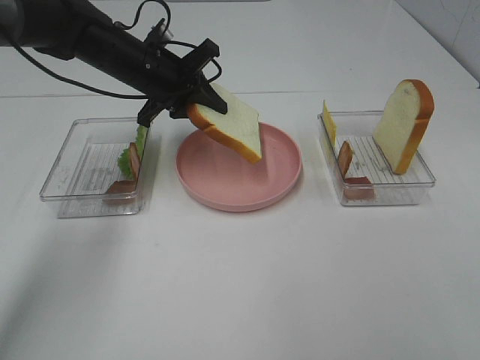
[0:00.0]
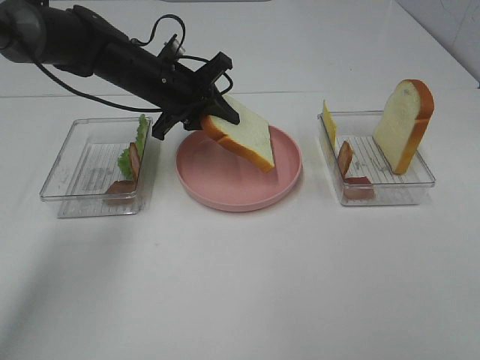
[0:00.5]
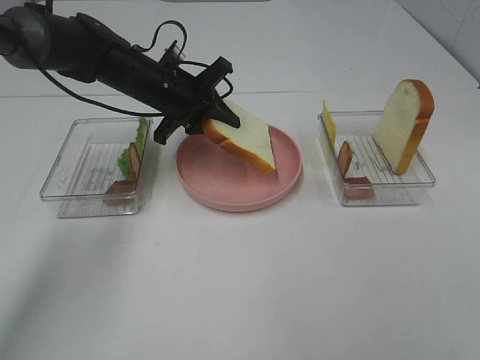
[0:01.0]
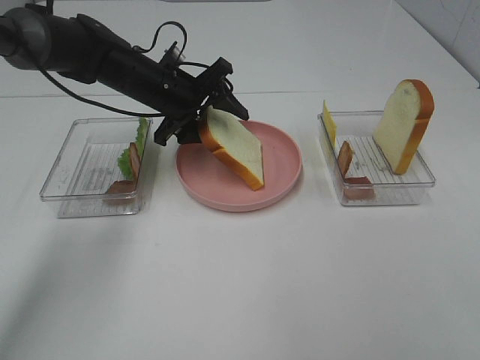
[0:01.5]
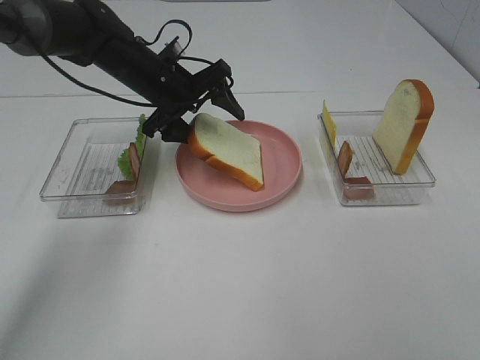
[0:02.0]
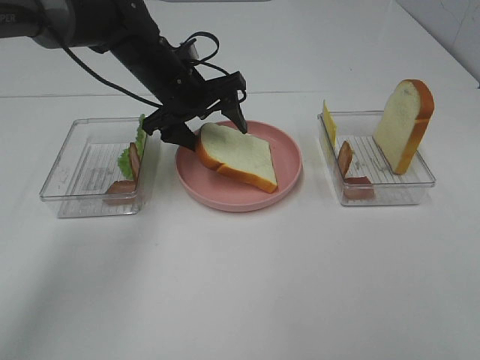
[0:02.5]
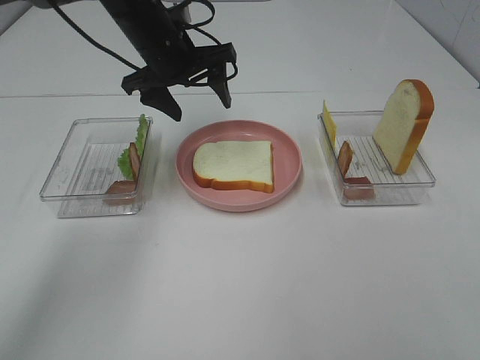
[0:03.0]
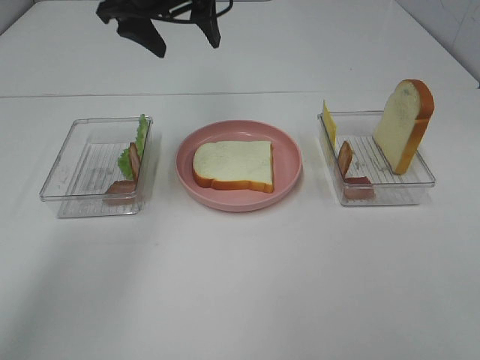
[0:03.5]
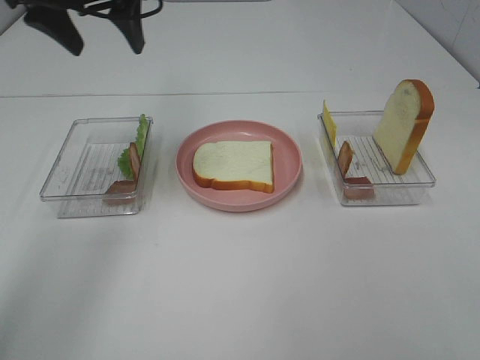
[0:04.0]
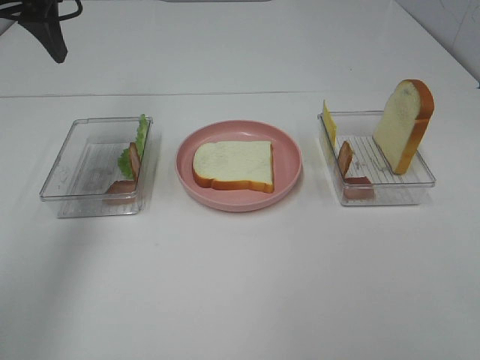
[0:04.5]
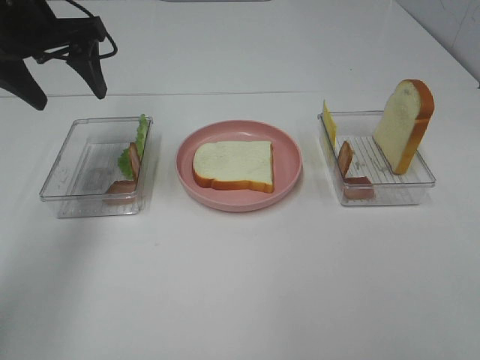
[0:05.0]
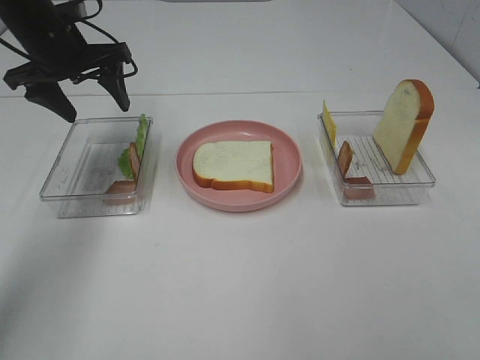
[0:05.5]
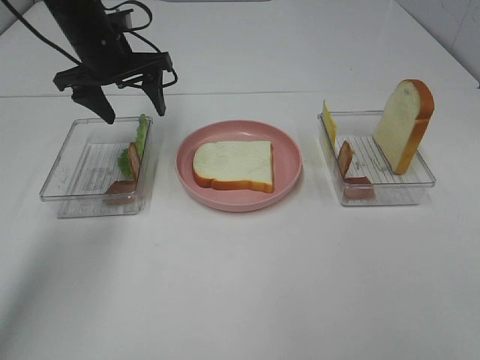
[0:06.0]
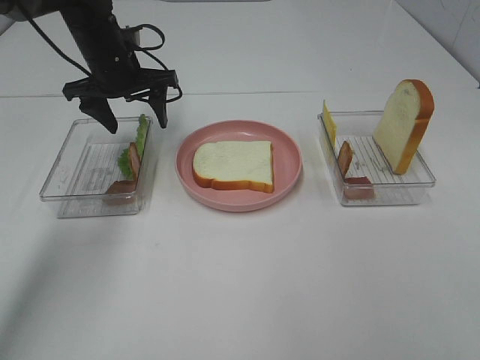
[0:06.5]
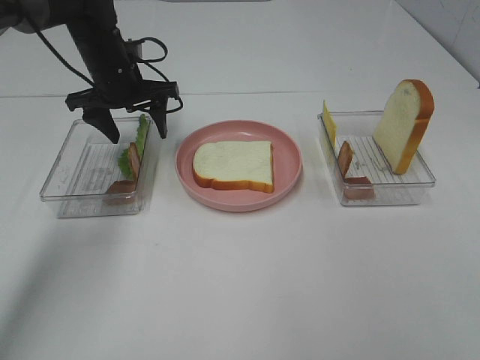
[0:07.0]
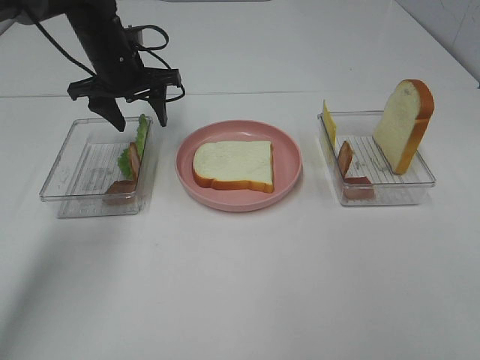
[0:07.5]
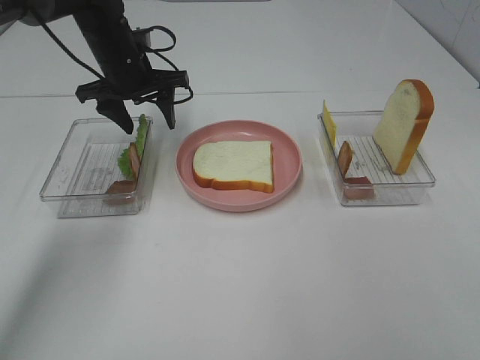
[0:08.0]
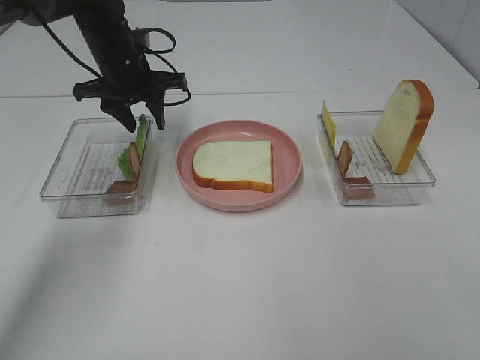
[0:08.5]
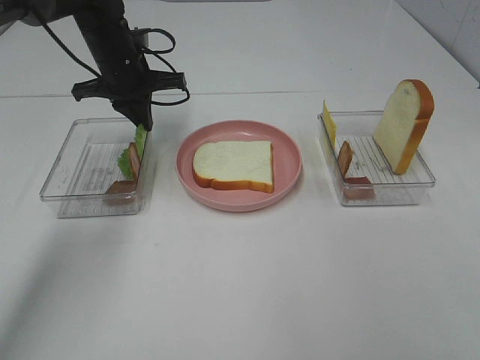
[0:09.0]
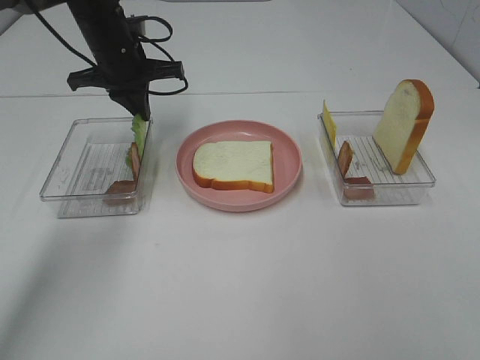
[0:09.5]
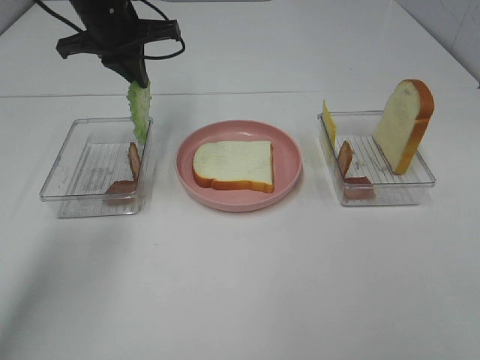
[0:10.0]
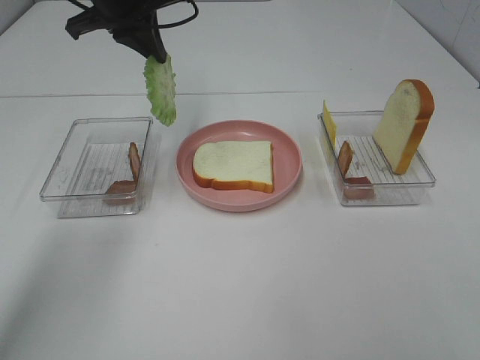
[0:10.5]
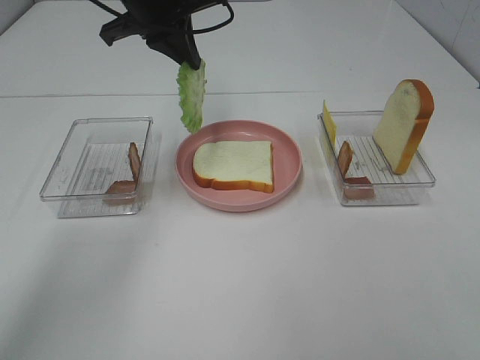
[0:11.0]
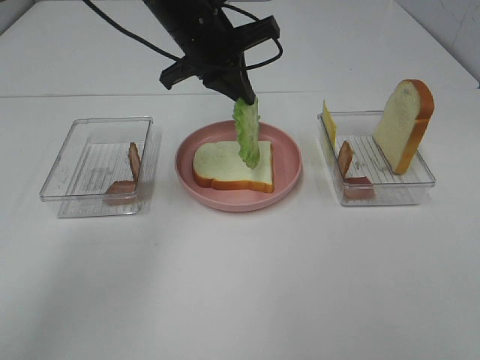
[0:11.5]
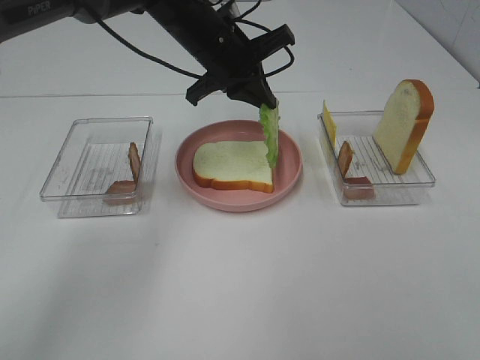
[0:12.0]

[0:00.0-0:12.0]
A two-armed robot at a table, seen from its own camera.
Task of the whole recording: Make sandwiches.
Step, 0:00.0 to 0:03.0: Left hand:place the bread slice on the plate.
Step, 0:03.5 to 0:09.0: Left hand:grab the lettuce slice.
0:00.0 to 0:02.0: The left gripper opens its fingers.
0:02.0 to 0:04.0: The left gripper goes approximately 20 cm upward and to the left.
0:04.0 to 0:06.0: The left gripper is displaced downward and forward by about 15 cm.
0:06.0 to 0:08.0: There are only small adjustments of the grippers.
0:08.0 to 0:10.0: The left gripper moves upward, roughly 10 cm, and closes.
0:10.0 to 0:12.0: The left gripper is displaced to the right by some 15 cm.

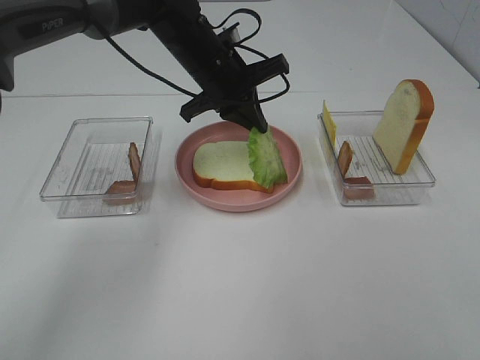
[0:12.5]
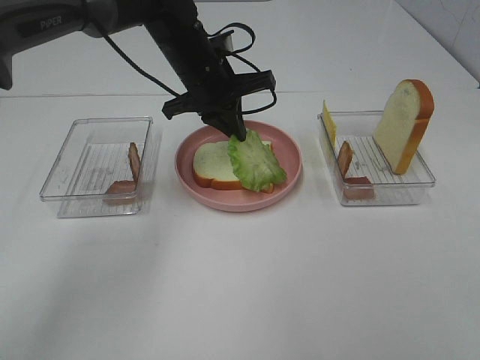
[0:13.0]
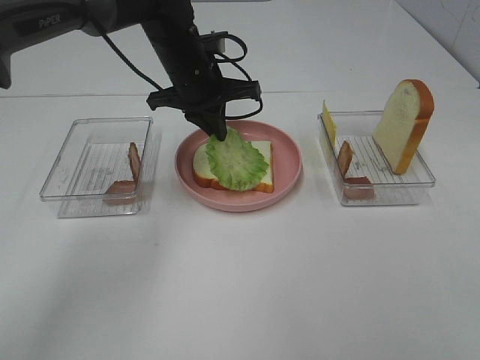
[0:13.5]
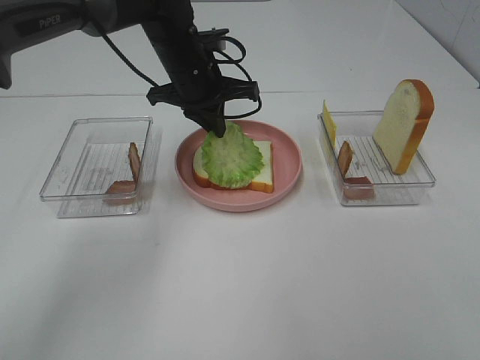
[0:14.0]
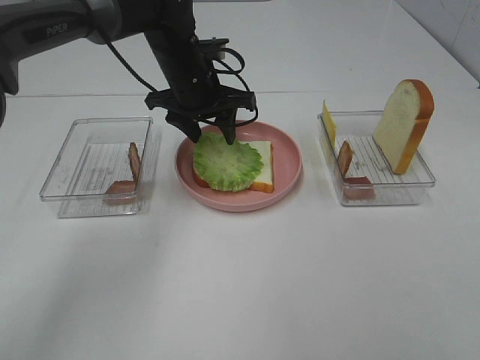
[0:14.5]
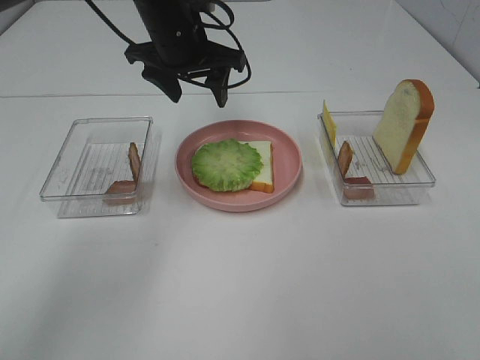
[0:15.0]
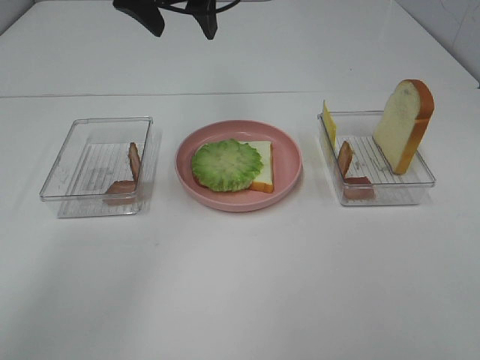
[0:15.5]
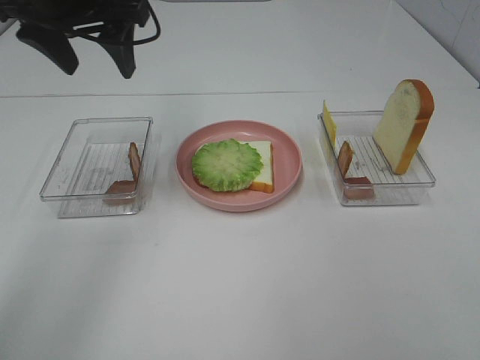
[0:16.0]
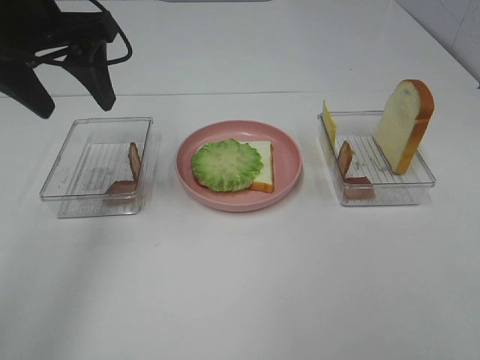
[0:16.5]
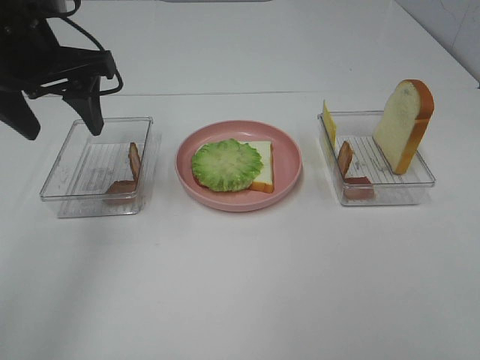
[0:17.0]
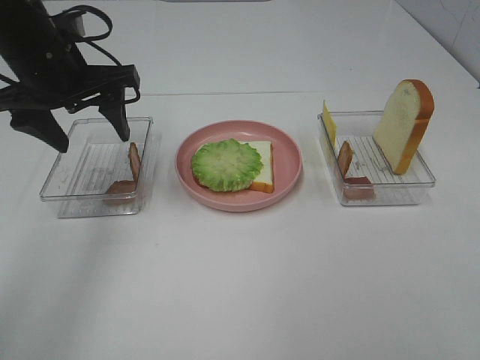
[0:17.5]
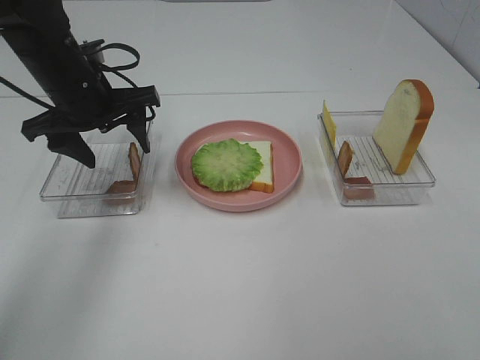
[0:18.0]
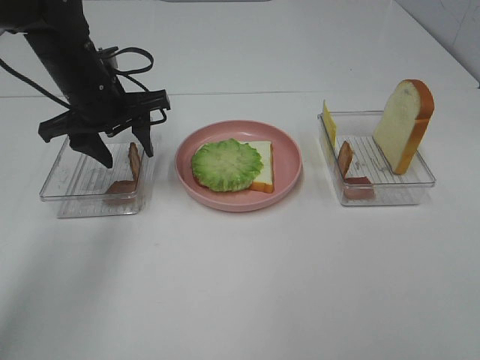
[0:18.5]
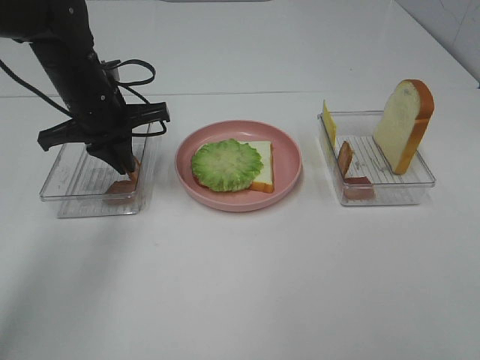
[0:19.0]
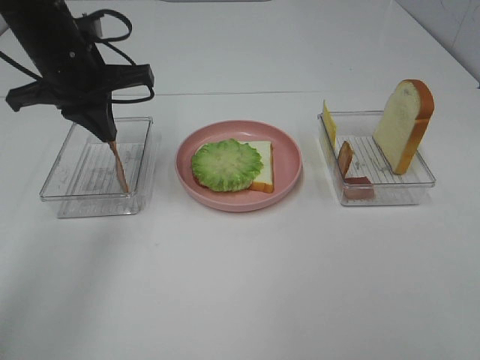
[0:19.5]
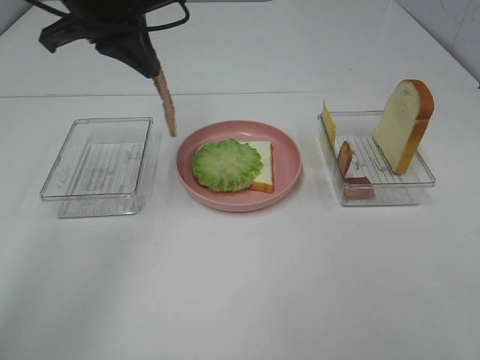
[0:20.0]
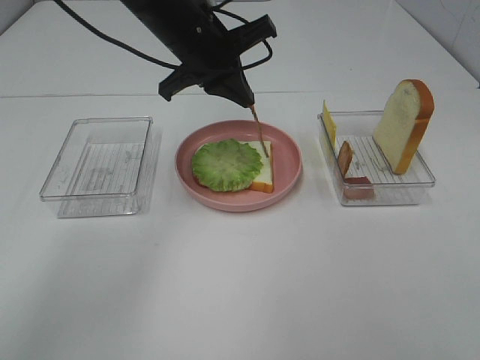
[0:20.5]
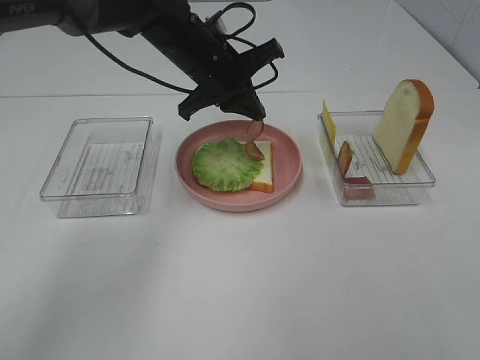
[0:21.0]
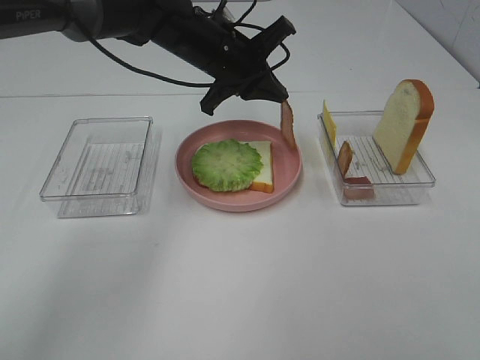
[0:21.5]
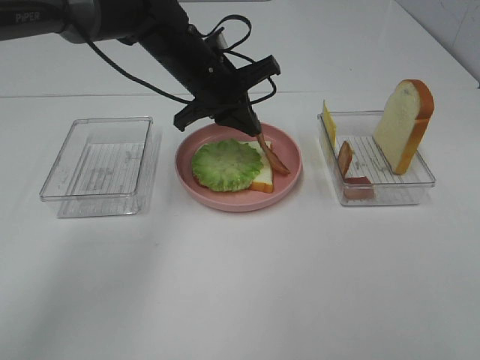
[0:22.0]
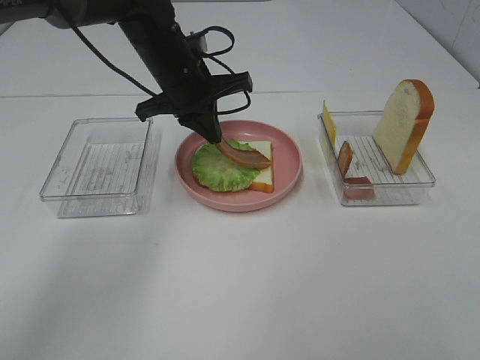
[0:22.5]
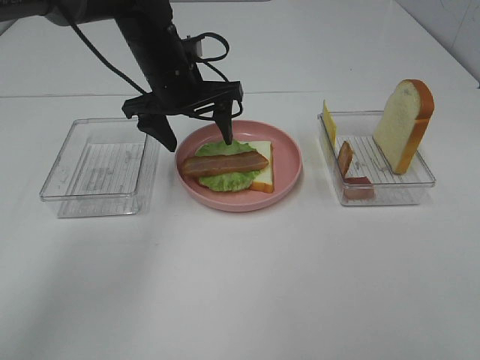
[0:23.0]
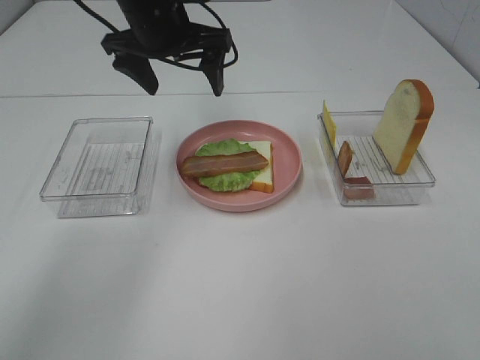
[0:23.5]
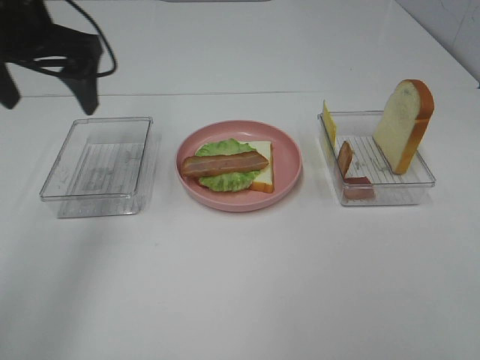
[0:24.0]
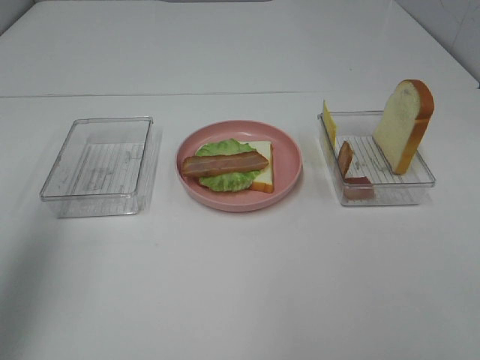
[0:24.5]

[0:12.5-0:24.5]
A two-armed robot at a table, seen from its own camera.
Task of the whole recording: Make sandwiches.
Step, 0:12.5 to 0:14.5: Left hand:place the lettuce slice on the bread slice.
Step, 0:15.0 to 0:19.0: Left hand:grab the bacon.
Step, 0:19.5 to 0:23.0: Left hand:place bacon on lettuce slice.
0:12.5 to 0:14.5: The left gripper opens its fingers.
0:14.5 to 0:16.5: The left gripper goes approximately 20 cm upward, to the left and backward.
0:16.5 to 0:18.5: The left gripper shifts approximately 15 cm downward and forward.
0:18.5 to 0:20.5: The left gripper travels to the right and upward by about 15 cm, and closes.
0:20.5 to 0:22.5: The left gripper changes place by approximately 5 cm.
0:22.5 to 0:24.5: The left gripper shifts about 35 cm to the left, backward and upward, and opens.

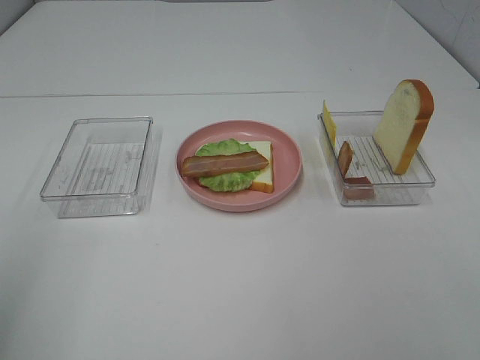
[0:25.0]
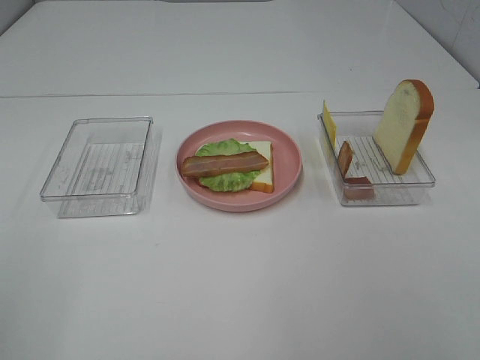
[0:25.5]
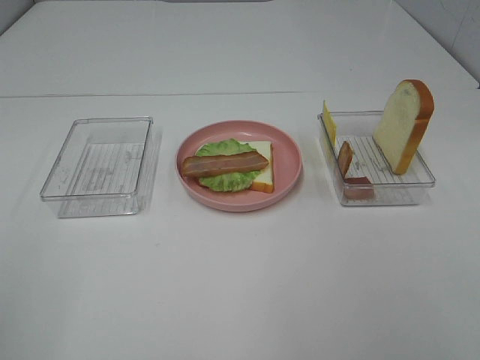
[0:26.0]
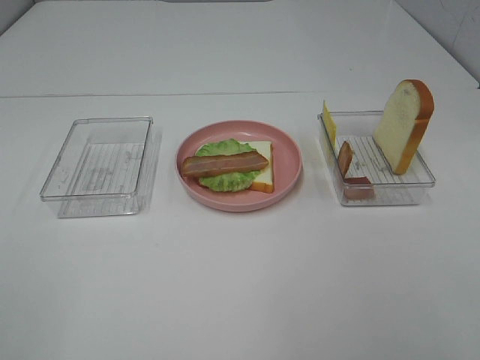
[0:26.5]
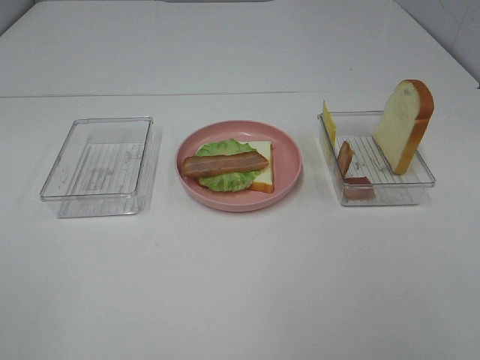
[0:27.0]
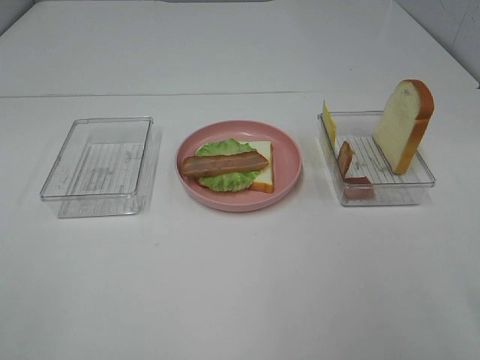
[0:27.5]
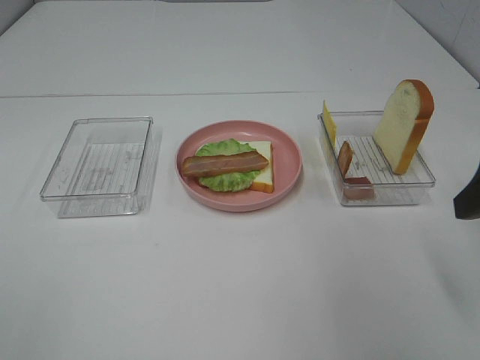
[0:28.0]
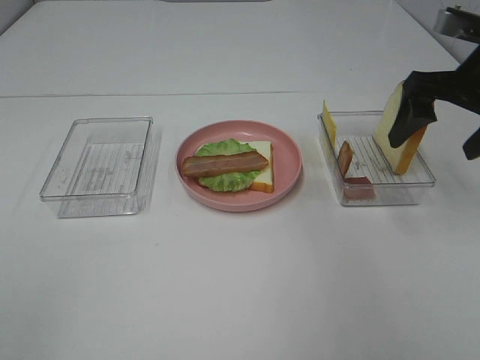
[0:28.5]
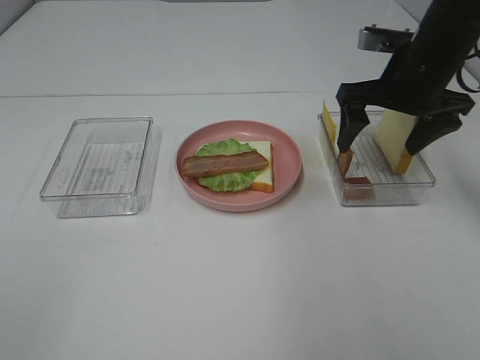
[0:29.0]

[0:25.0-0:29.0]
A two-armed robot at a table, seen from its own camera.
Task of the whole recording: Make sandwiches.
0:27.0 to 0:29.0: The right gripper is displaced forward by approximately 40 cm.
